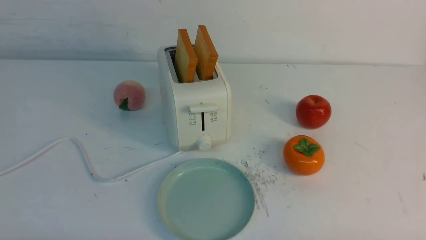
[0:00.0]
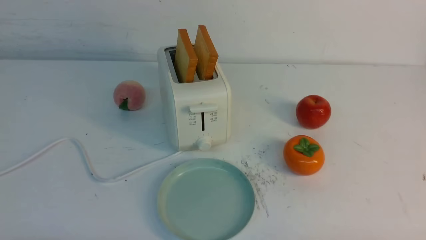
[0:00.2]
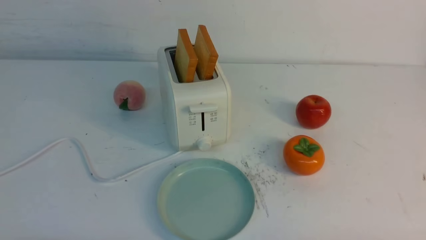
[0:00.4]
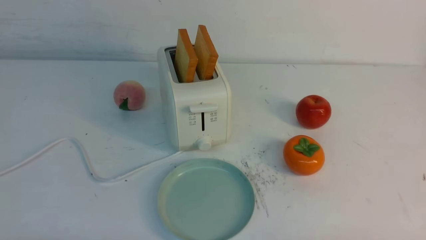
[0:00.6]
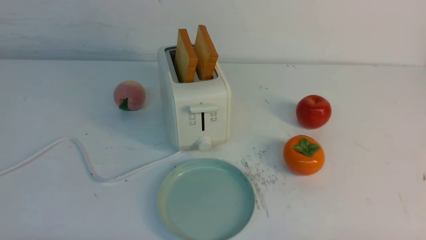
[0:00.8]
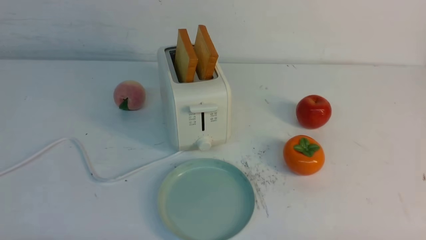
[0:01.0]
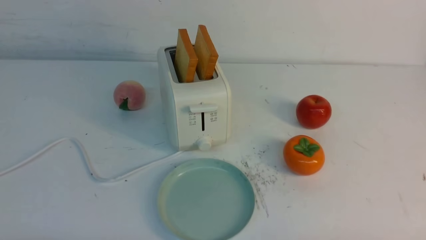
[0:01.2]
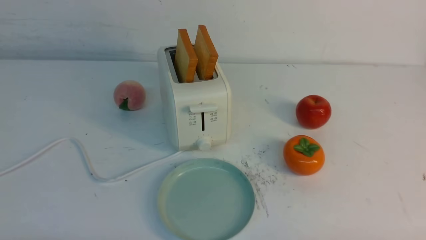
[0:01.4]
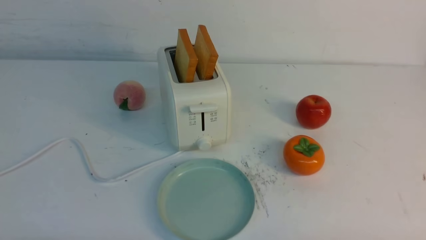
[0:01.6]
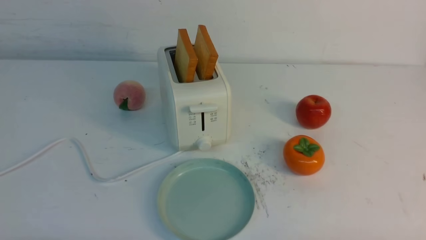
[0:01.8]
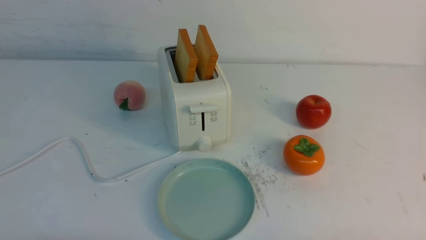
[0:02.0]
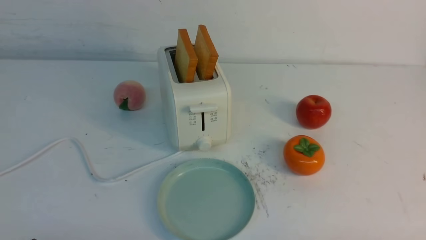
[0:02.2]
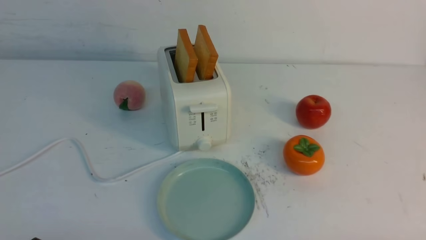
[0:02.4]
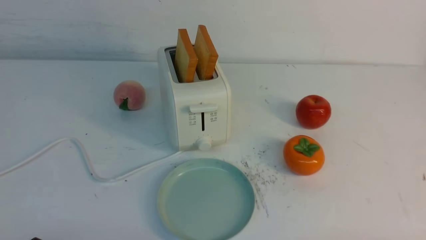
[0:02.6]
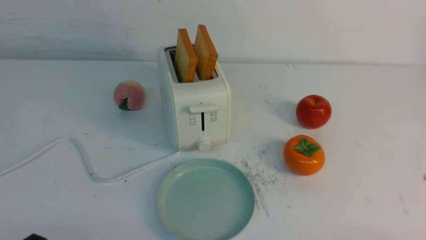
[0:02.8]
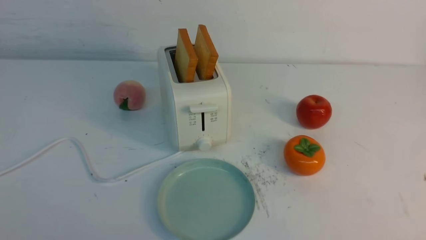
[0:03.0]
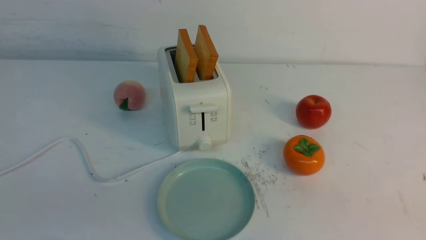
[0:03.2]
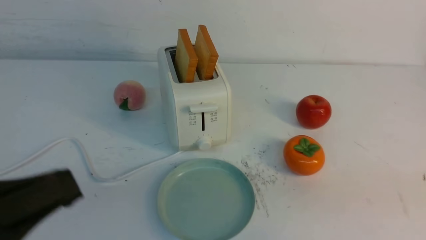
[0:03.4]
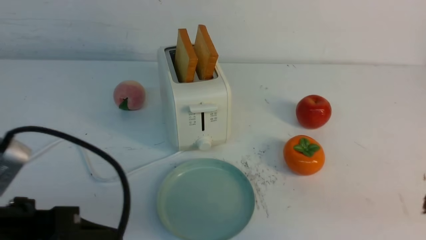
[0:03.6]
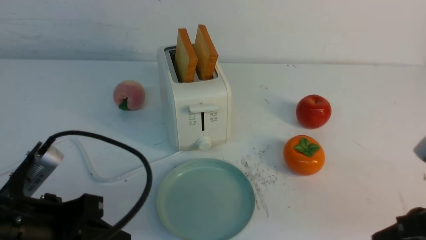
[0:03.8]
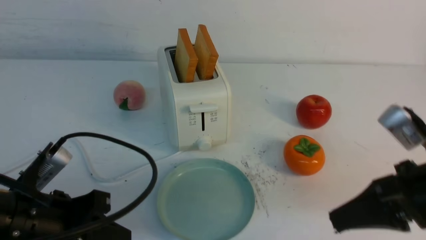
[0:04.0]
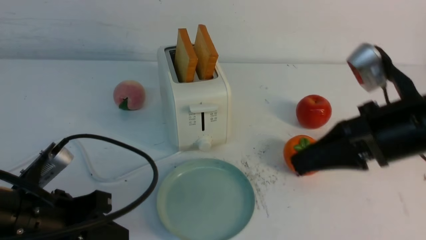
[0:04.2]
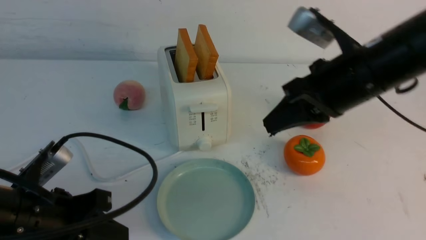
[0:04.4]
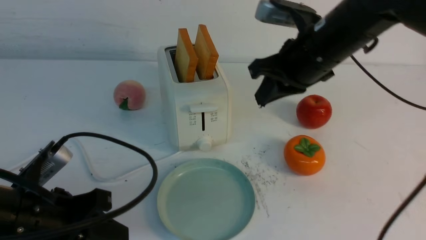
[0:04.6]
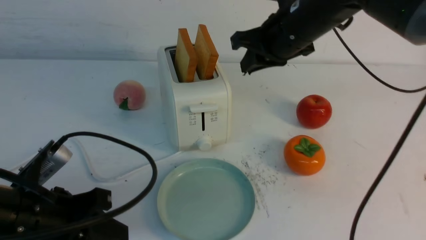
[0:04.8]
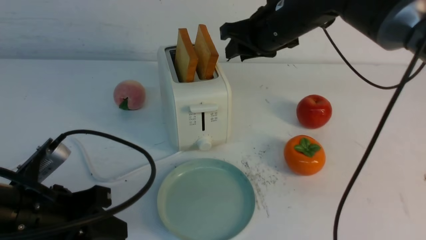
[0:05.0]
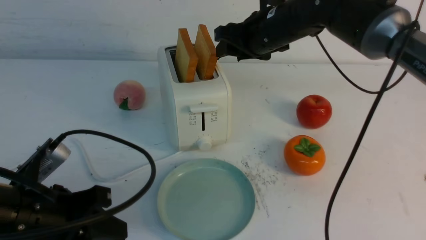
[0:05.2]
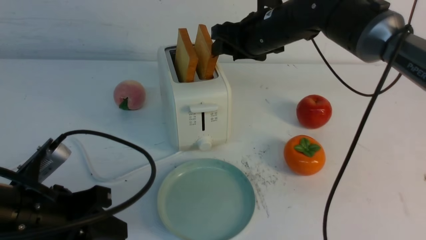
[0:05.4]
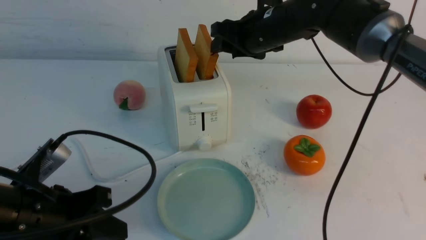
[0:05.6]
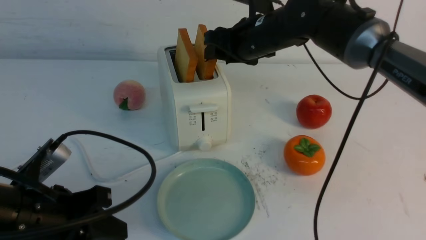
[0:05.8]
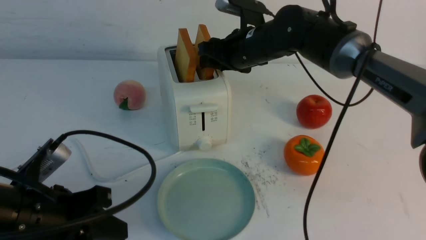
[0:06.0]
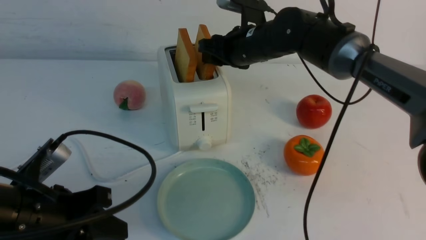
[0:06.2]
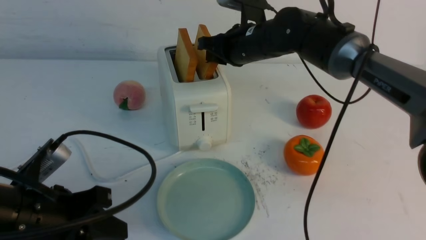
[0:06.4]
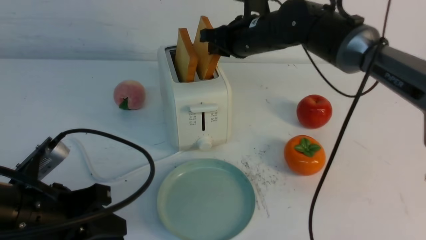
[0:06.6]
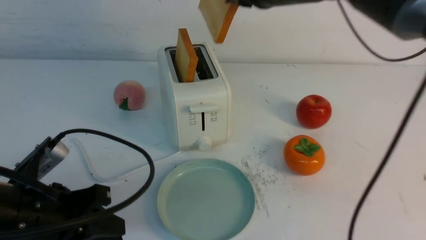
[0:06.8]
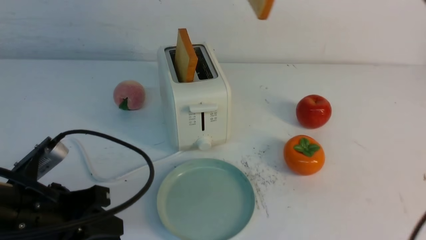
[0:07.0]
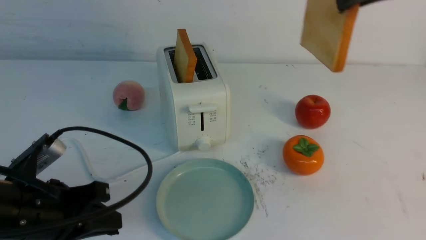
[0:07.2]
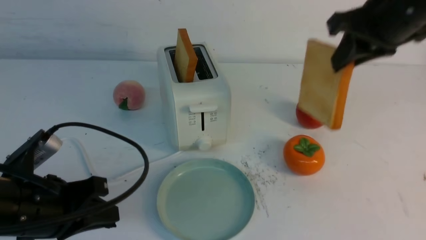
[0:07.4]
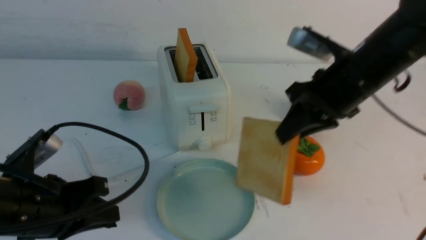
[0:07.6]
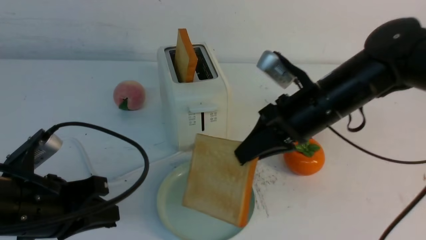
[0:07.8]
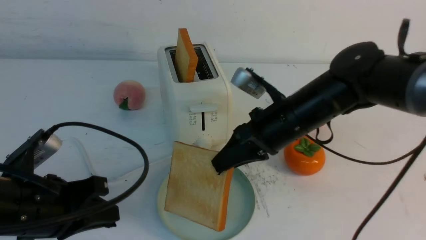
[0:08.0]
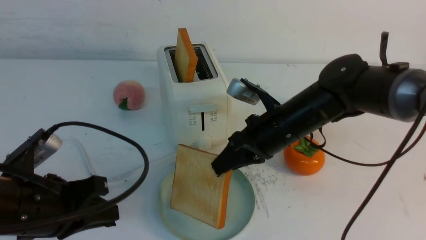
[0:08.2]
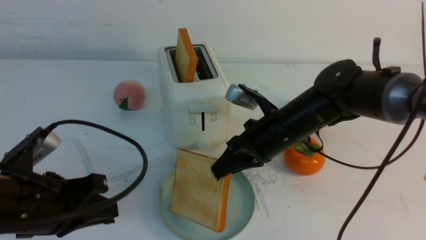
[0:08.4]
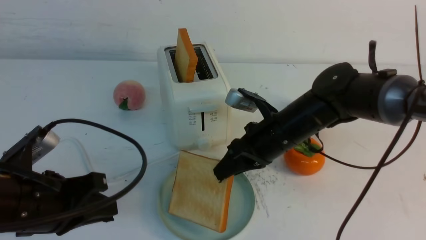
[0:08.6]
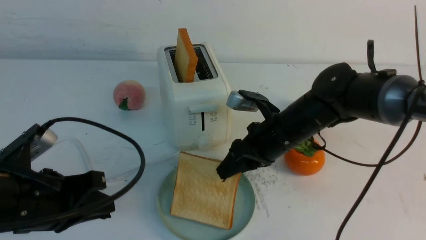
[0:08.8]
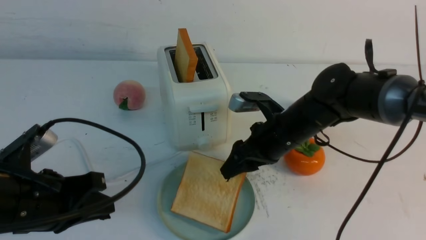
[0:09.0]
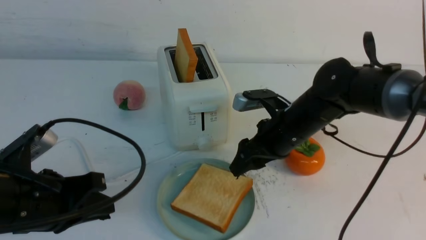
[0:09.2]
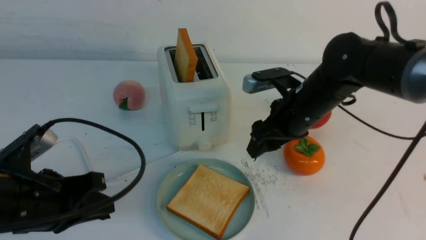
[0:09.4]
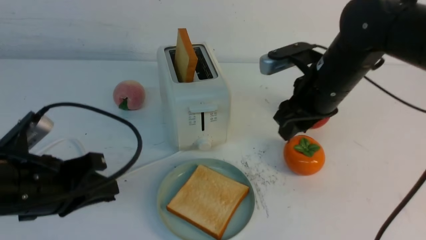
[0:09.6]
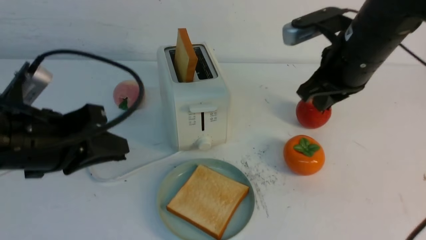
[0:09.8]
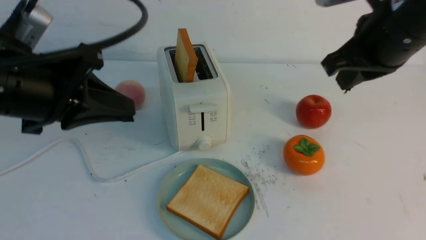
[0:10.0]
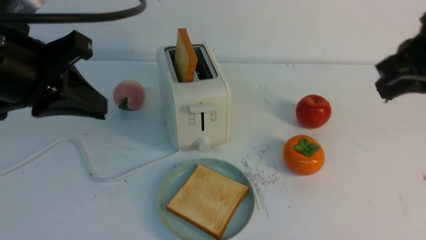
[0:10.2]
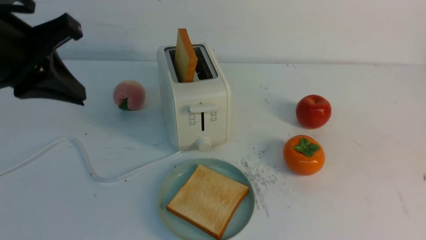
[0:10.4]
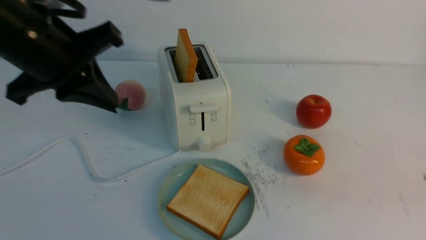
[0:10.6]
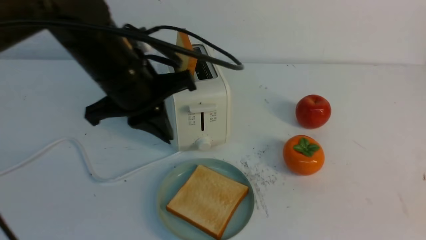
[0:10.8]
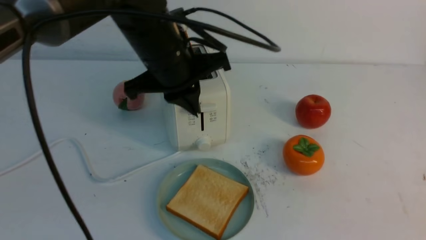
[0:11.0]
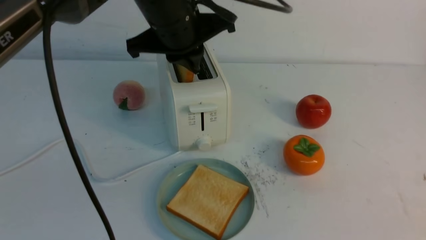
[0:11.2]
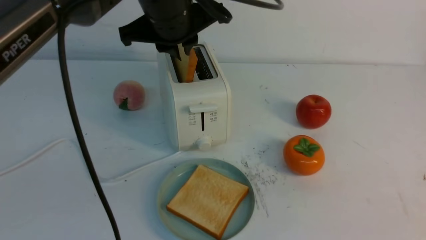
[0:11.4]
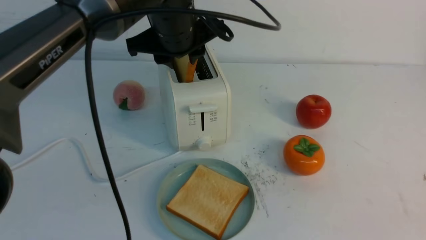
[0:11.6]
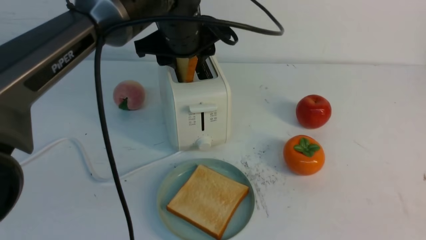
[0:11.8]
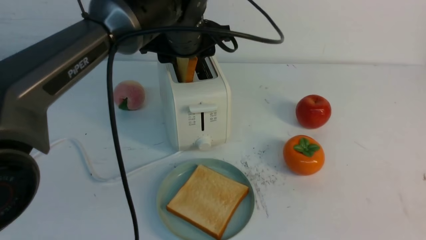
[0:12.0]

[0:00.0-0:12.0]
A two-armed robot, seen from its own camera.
Task of the whole recording: take toasted bread from bread machine on white table place on plate.
Step, 0:00.0 to 0:06.6: use the right arm to take out a slice of bread.
Step, 0:06.8 to 0:09.2: use the right arm to put a slice of bread into the plate.
0:00.0 to 0:01.6: The two grippers keep their place.
0:03.0 to 0:04.4: The right gripper goes some 30 cm forward, to the left and upward, and closes, while the left gripper moves forward, roughly 15 cm.
0:04.4 to 0:06.0: The right gripper heads forward and to the left, covering approximately 20 cm, and opens up.
0:06.0 to 0:07.6: The right gripper goes some 15 cm backward and to the right, goes upward and returns, approximately 15 cm each way, and closes up.
0:07.6 to 0:09.0: The right gripper heads downward and to the left, covering approximately 15 cm, and opens.
0:09.0 to 0:10.4: The right gripper heads backward, upward and to the right, covering about 35 cm, and closes up. Meanwhile the left gripper travels upward and forward by approximately 15 cm.
0:10.4 to 0:12.0: The right gripper travels backward by about 10 cm; the left gripper heads to the right and forward, covering roughly 20 cm, and opens up.

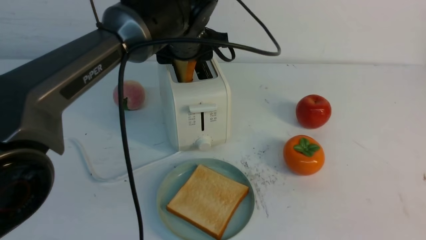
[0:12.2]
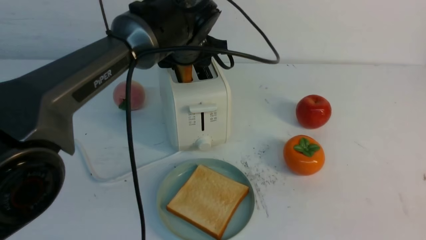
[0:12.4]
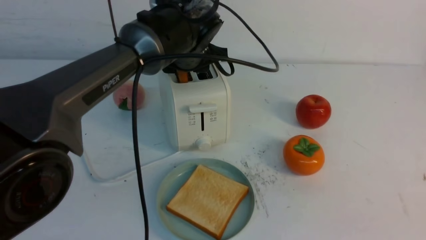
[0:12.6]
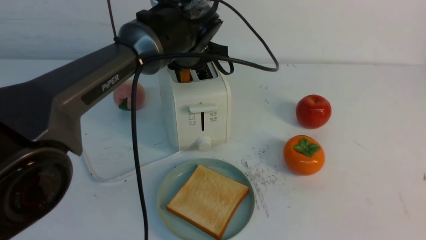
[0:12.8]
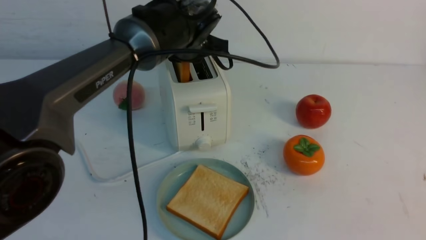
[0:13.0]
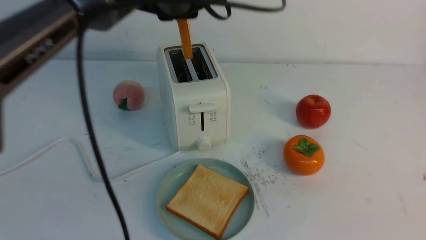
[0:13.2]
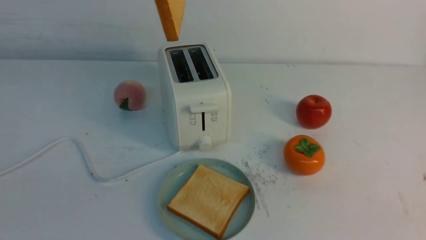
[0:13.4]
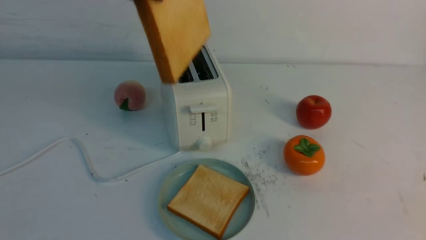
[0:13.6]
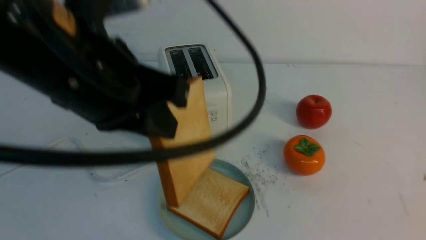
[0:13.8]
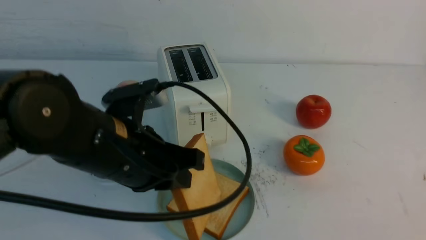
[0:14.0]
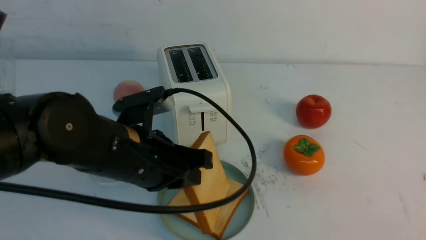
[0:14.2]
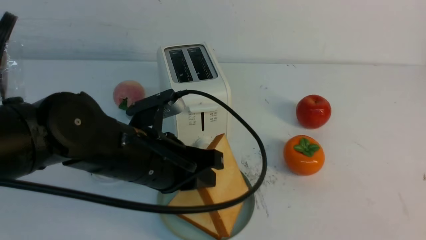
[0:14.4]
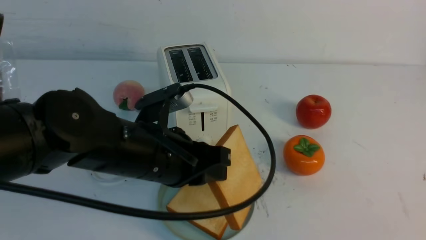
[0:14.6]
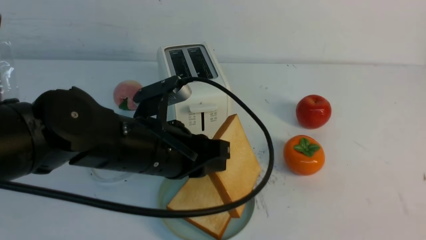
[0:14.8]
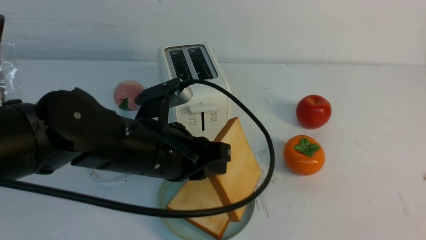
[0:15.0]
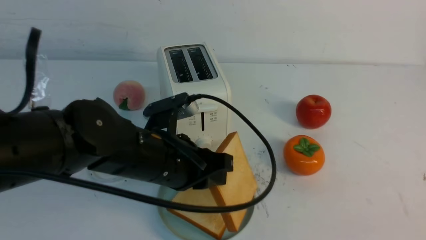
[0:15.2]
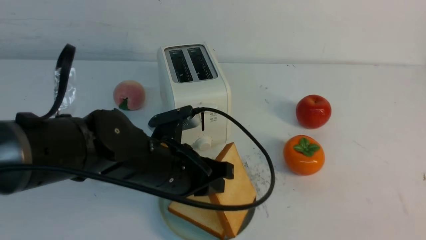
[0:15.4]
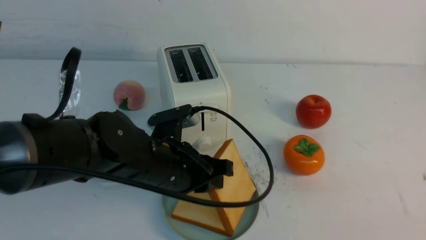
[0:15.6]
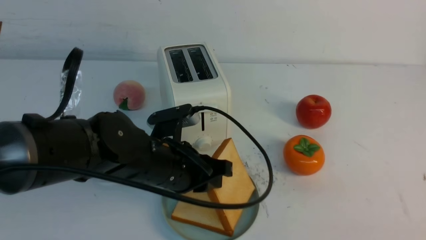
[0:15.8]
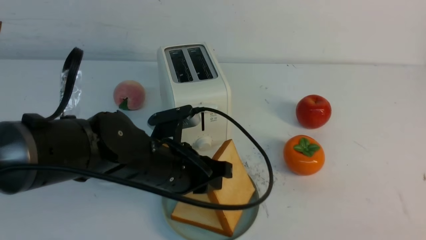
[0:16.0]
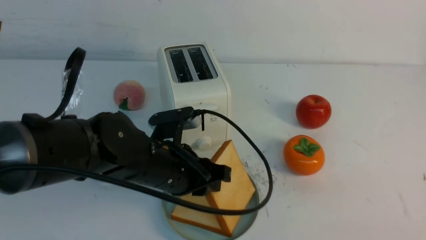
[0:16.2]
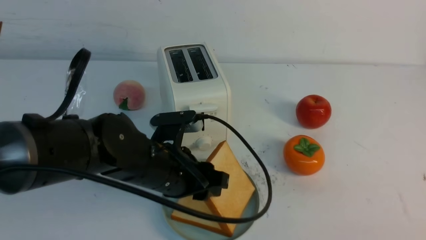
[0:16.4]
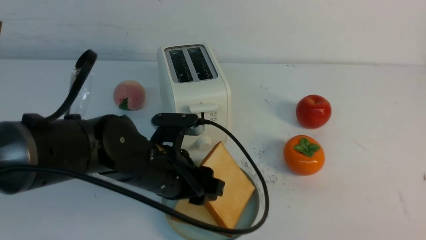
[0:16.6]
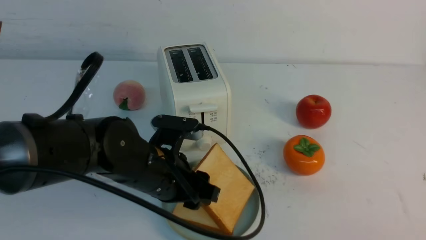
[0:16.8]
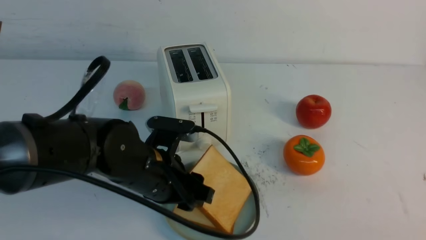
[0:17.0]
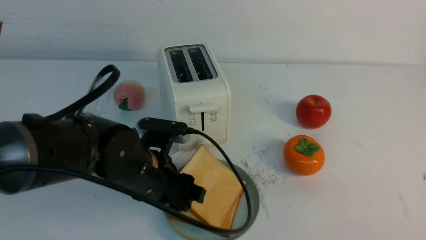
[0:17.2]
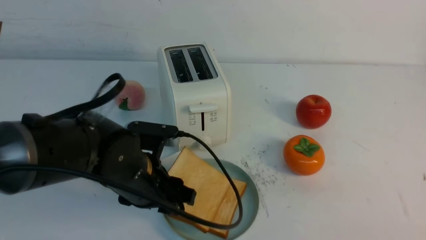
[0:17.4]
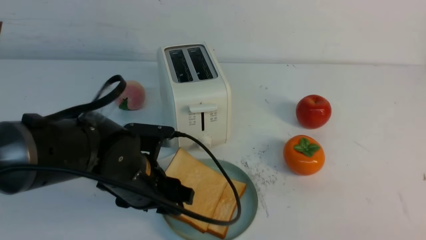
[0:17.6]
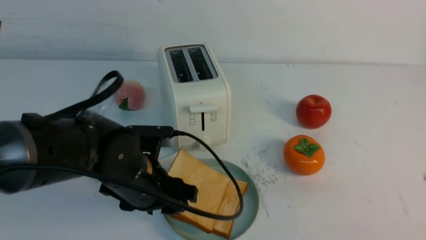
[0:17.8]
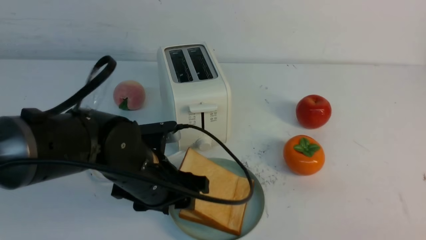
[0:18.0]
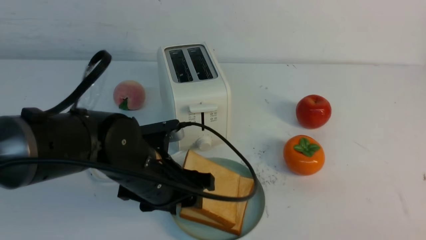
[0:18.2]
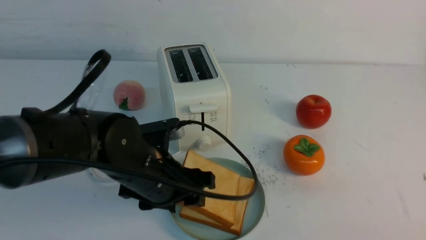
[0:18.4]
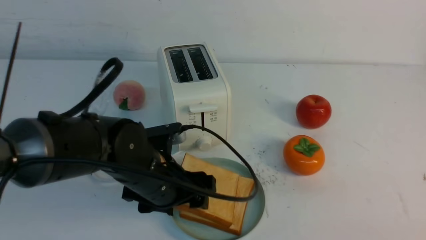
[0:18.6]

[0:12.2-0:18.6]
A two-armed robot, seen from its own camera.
Task of the whole recording: take toasted bread from bread machine on white table place on plate.
0:12.2 to 0:13.8: The left gripper goes about 20 cm backward, and closes its fingers.
0:13.8 to 0:15.4: The left gripper shifts roughly 15 cm downward.
0:15.4 to 0:17.0: The left gripper opens up.
0:17.0 to 0:18.6: The grippers stay close to where they were, moving slightly.
